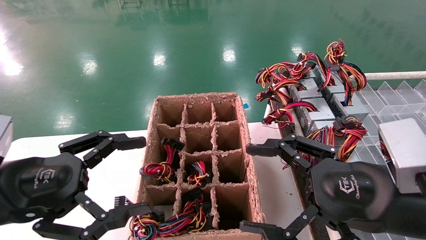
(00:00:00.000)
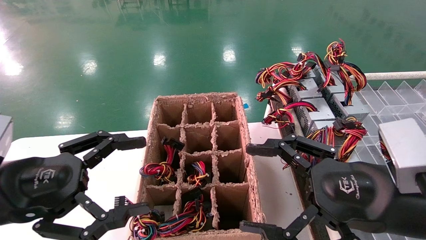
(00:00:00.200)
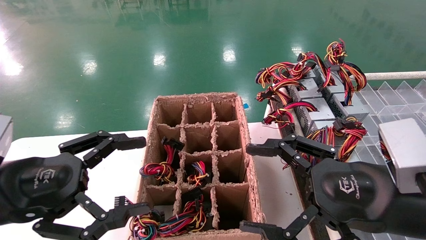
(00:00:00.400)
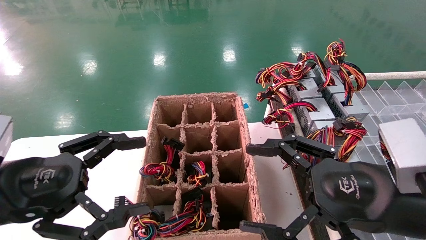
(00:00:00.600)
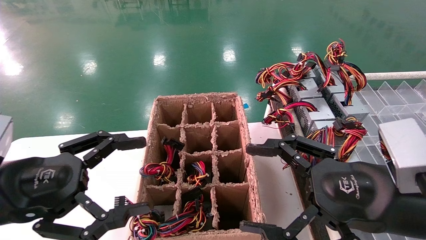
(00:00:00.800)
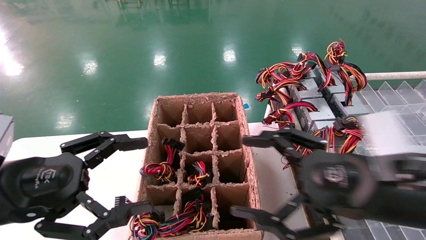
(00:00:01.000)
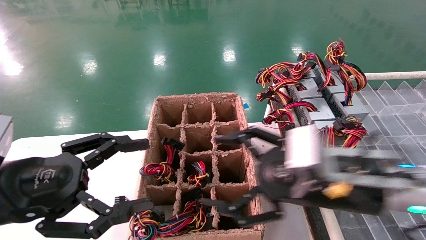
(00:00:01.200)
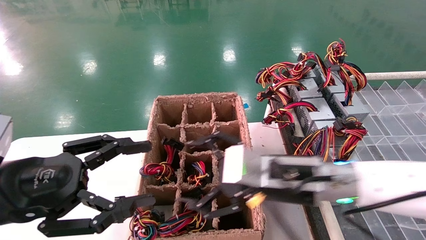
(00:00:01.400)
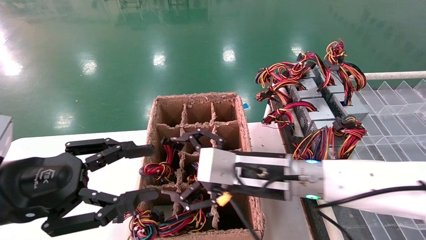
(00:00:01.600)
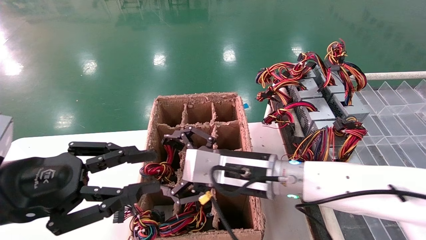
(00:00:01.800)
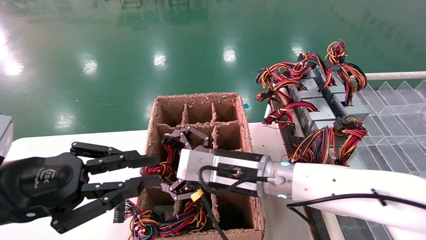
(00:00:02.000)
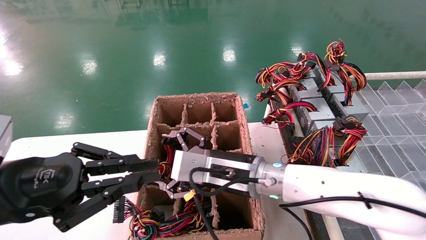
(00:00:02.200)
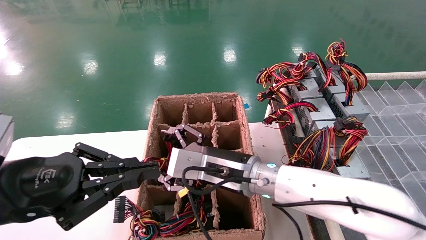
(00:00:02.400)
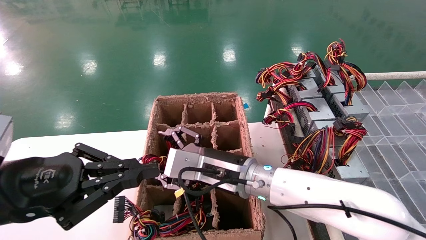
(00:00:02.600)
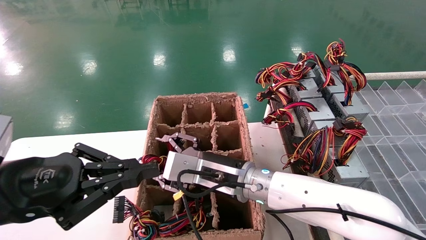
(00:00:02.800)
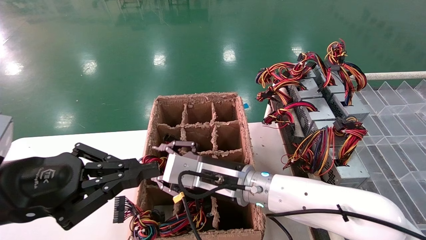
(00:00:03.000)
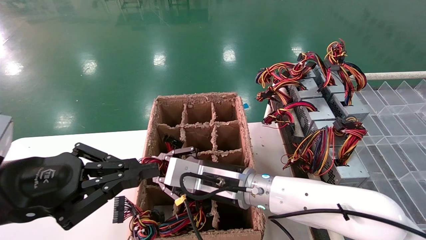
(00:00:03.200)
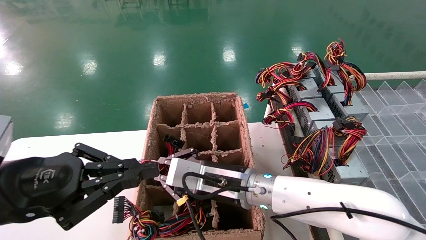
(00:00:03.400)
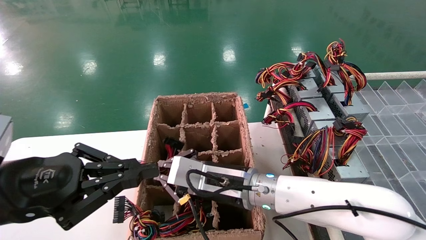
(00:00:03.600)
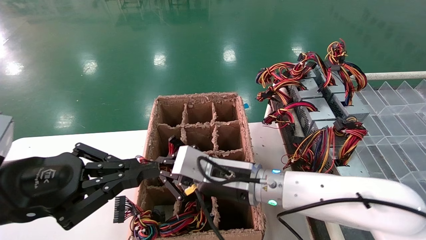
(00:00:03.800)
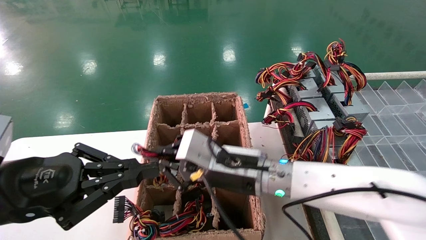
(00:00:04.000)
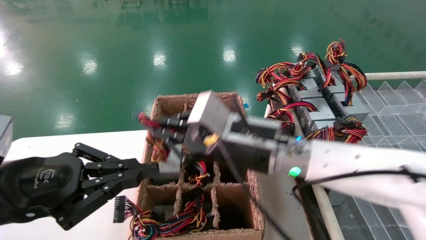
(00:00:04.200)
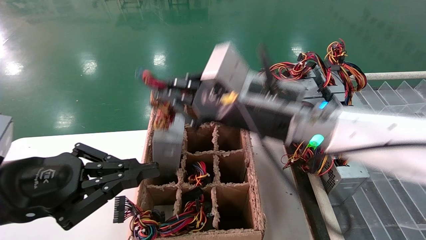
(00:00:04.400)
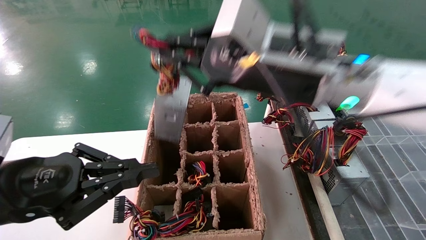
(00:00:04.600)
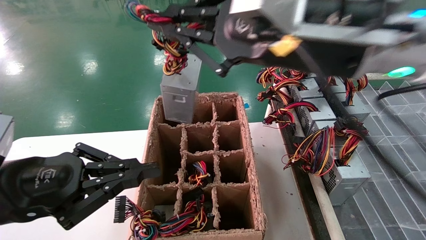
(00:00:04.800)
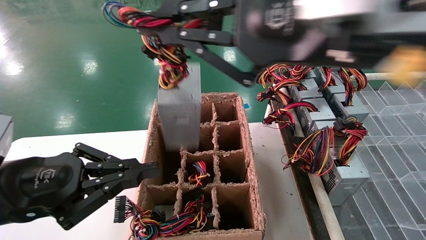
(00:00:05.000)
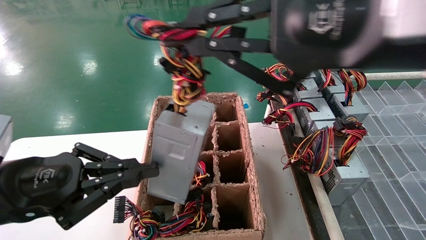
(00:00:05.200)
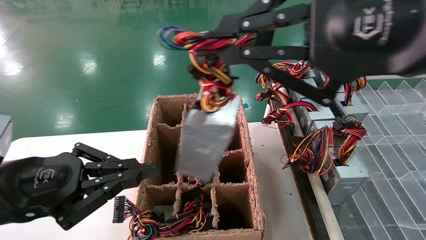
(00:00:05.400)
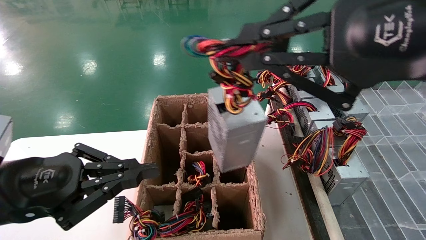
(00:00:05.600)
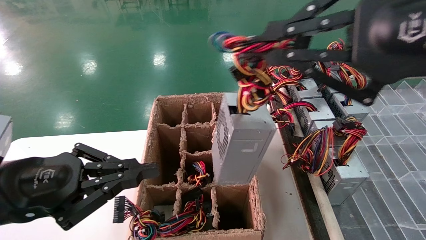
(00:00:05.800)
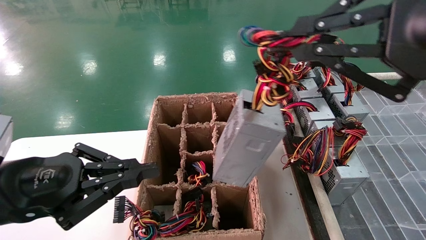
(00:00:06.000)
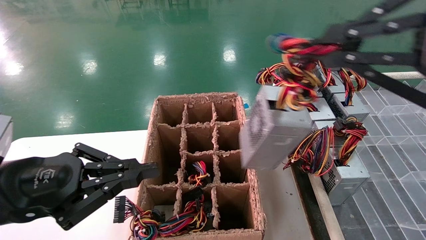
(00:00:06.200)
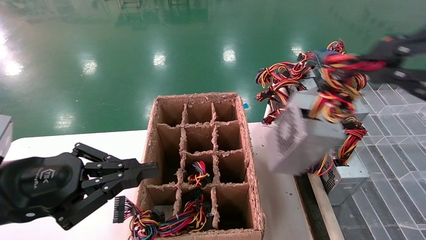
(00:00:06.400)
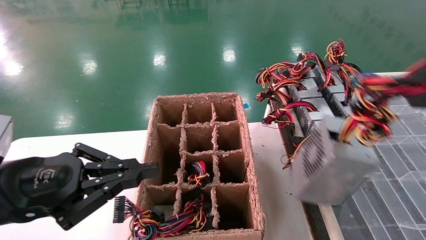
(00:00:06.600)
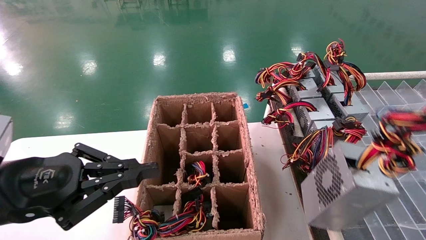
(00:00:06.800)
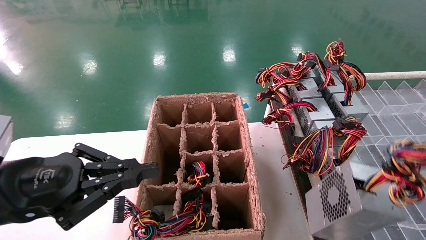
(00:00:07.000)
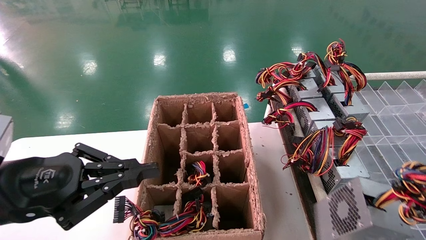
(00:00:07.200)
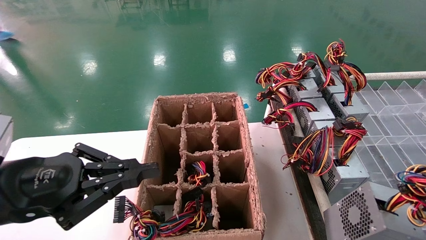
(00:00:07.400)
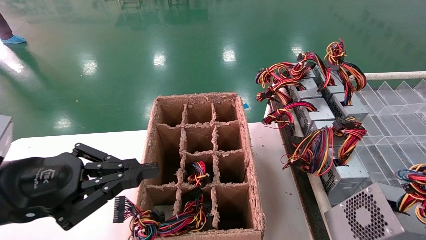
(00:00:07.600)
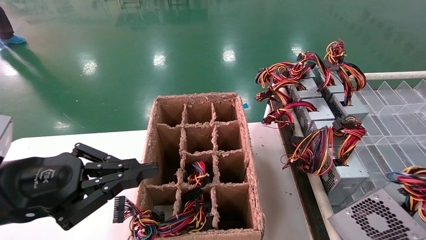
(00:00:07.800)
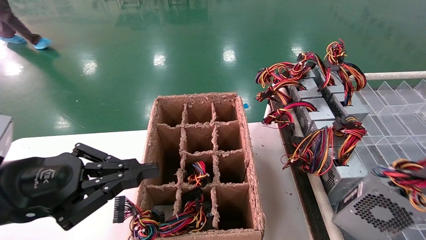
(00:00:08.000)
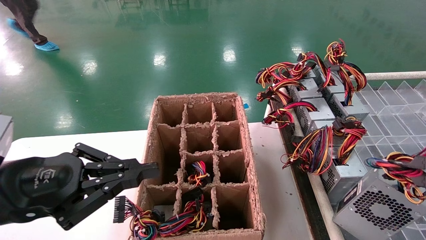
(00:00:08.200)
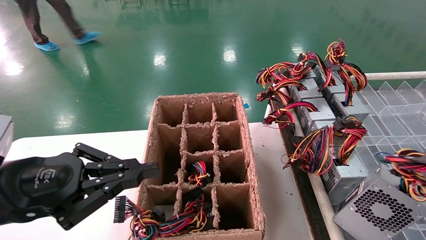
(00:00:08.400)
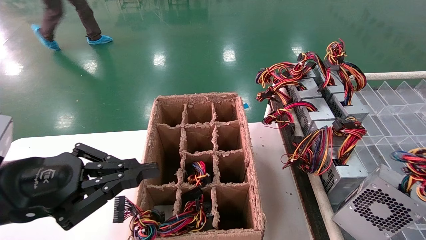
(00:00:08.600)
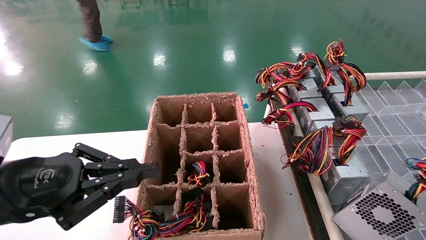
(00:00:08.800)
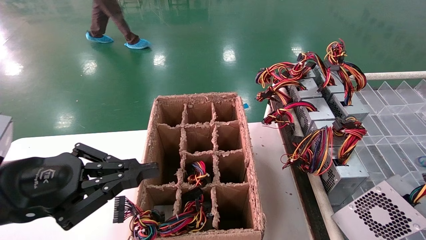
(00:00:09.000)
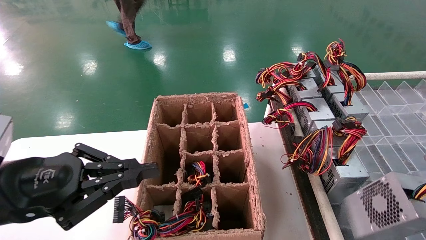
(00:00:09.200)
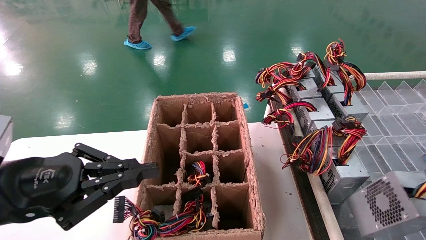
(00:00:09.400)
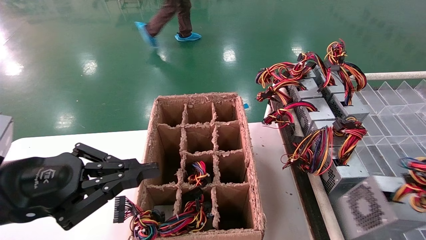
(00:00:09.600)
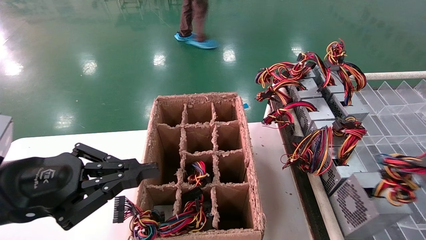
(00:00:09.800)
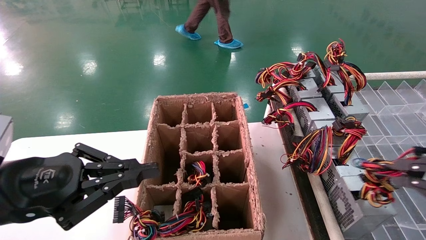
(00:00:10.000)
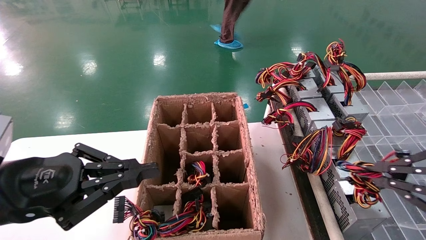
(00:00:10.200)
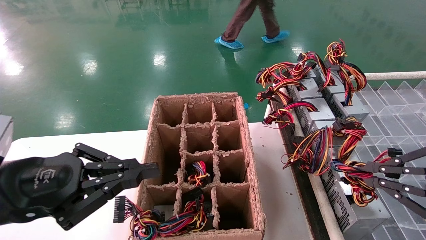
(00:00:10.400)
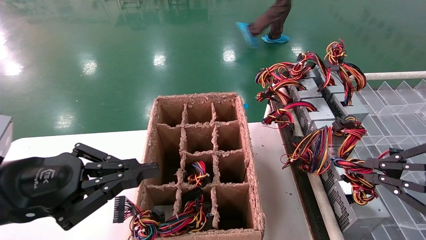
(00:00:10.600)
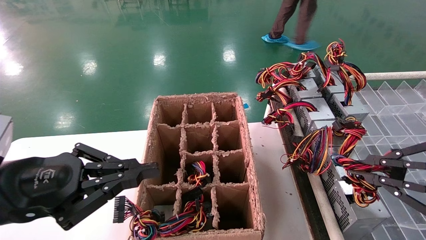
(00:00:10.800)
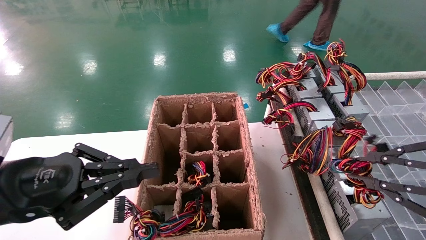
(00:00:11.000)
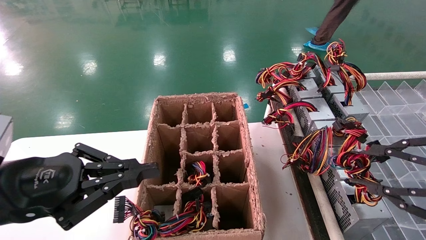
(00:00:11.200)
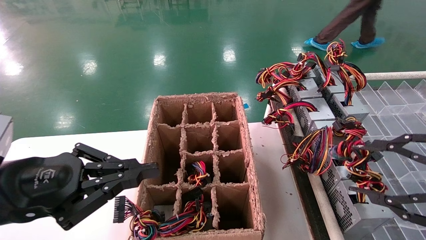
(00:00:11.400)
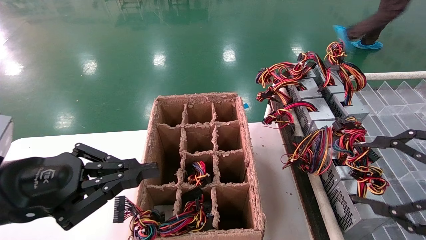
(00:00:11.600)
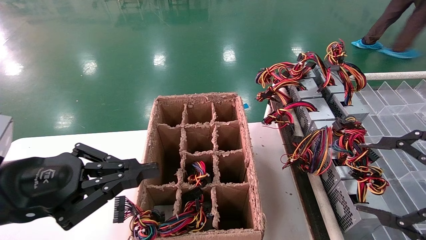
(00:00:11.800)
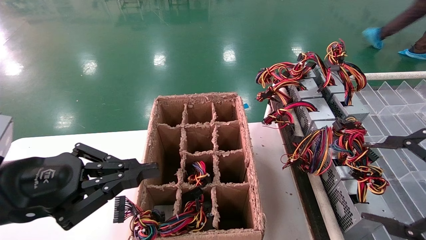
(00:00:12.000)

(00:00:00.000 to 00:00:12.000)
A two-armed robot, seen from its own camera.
Step, 00:00:01.200 - 00:00:03.400: Grab the main unit power supply from the containment box.
Step, 00:00:03.600 - 00:00:11.200: Place the main unit power supply in the designated area.
00:00:00.000 - 00:00:01.600: The left gripper closes its fingers. Meanwhile the right gripper heads to the left and forward, covering approximately 20 cm.
00:00:01.600 - 00:00:03.000: The right gripper moves to the left, about 5 cm, and closes up, while the left gripper closes.
00:00:03.000 - 00:00:04.400: The right gripper goes approximately 15 cm upward, and closes its fingers.
00:00:04.400 - 00:00:06.000: The right gripper heads backward, to the right and upward, covering some 25 cm.
00:00:06.000 - 00:00:07.600: The right gripper shifts some 20 cm to the right, downward and backward.
00:00:07.600 - 00:00:09.000: The grippers move only a little.
00:00:09.000 - 00:00:10.400: The right gripper is displaced forward by approximately 10 cm.
00:00:10.400 - 00:00:12.000: The right gripper opens.

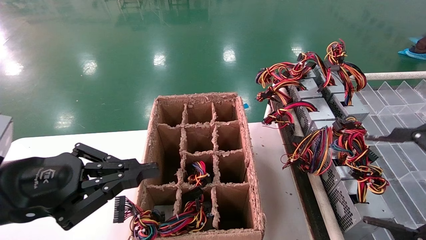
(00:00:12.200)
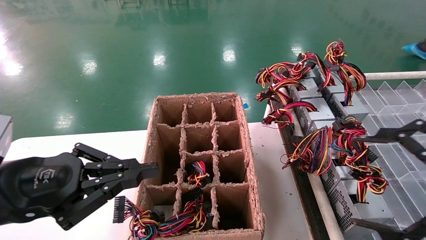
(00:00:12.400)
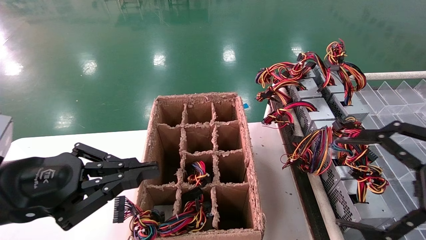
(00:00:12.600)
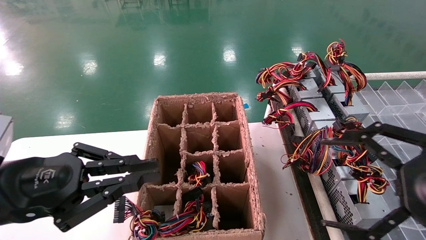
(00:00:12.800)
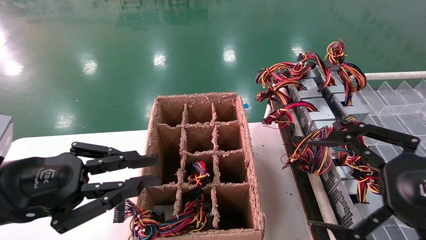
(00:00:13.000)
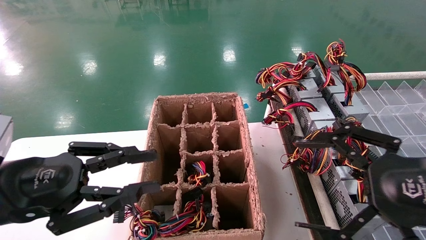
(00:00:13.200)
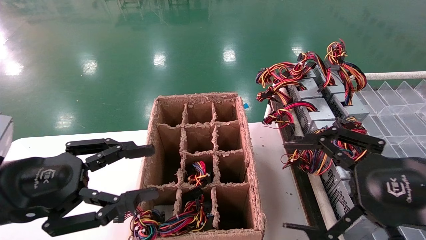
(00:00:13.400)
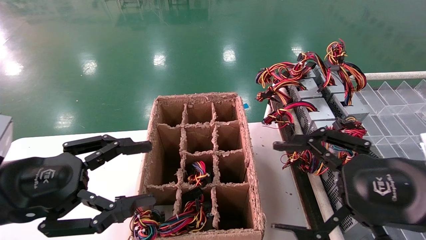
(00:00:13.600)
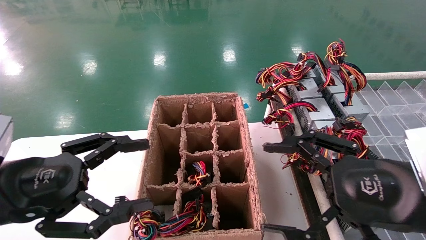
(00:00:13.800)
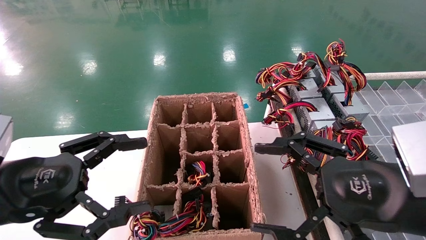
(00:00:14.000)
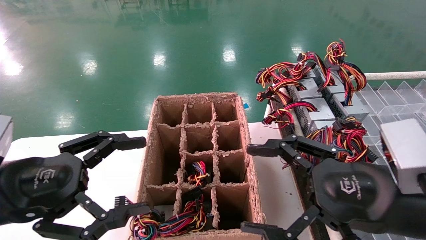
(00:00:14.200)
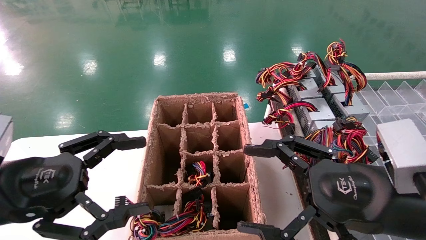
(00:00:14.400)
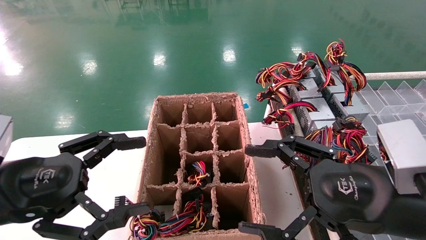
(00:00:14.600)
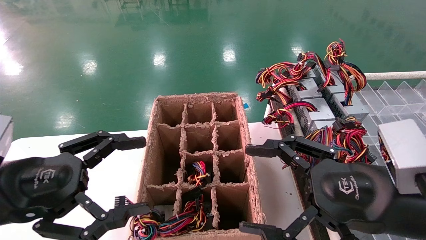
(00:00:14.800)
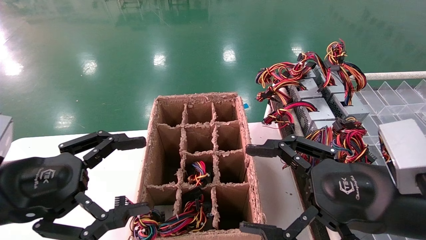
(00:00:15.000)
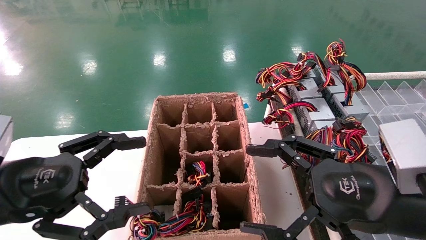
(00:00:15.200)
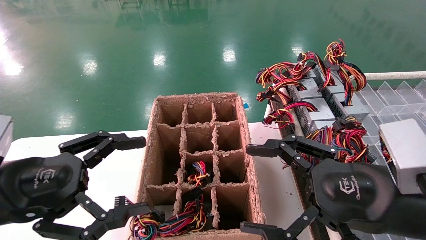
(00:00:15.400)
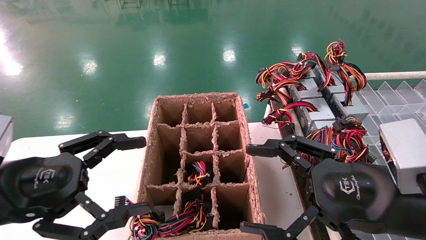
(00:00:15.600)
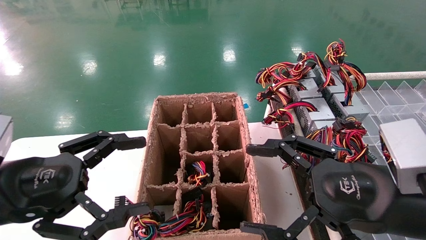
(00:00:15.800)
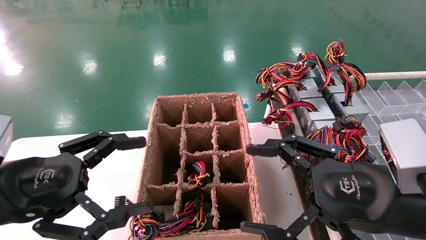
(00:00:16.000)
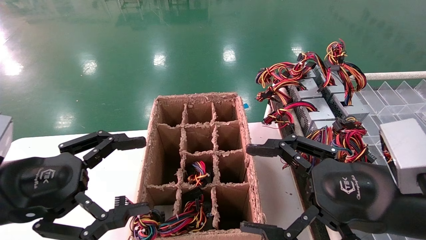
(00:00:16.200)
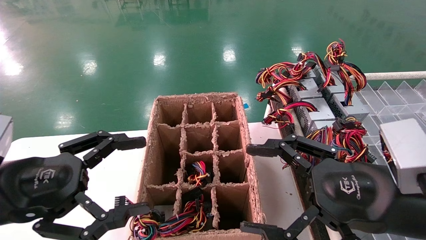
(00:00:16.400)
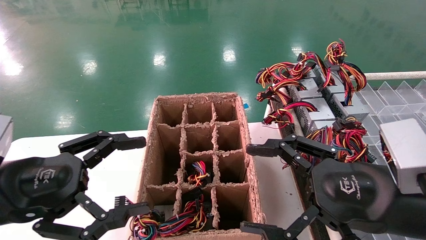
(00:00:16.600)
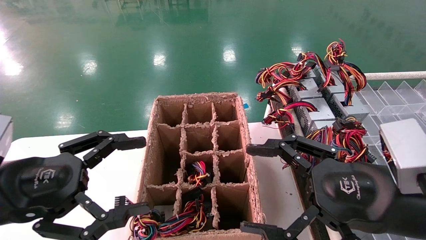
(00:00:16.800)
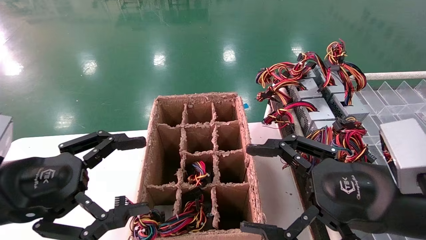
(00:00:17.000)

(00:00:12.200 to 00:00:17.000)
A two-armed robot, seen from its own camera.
00:00:12.200 - 00:00:13.800: The left gripper opens up. Meanwhile the right gripper is displaced to the left and forward by roughly 10 cm.
00:00:13.800 - 00:00:15.400: The grippers move only a little.
00:00:15.400 - 00:00:17.000: Neither gripper changes place.
